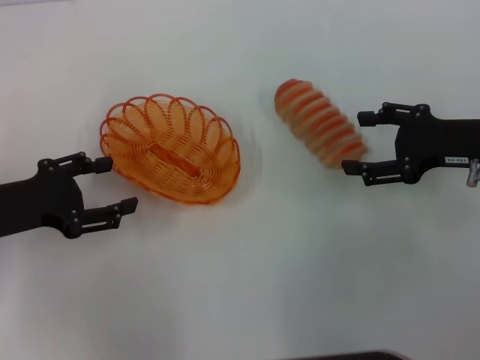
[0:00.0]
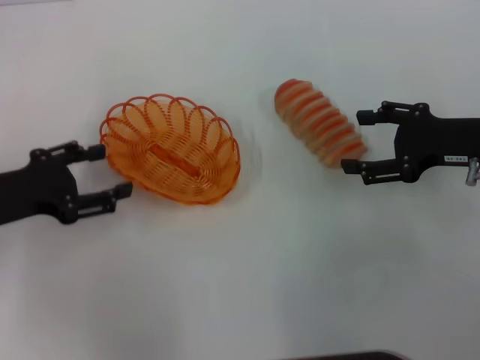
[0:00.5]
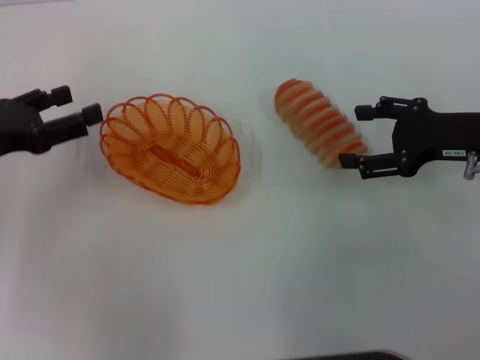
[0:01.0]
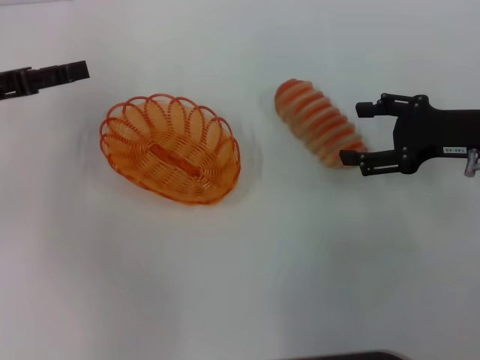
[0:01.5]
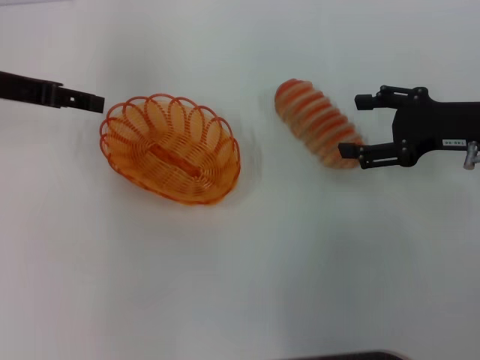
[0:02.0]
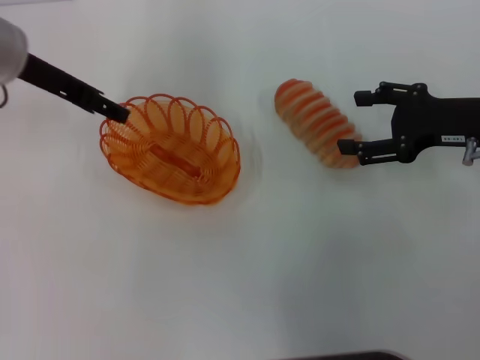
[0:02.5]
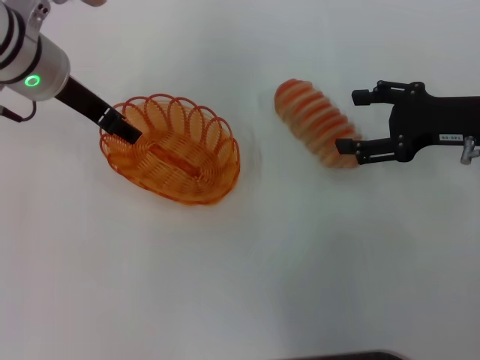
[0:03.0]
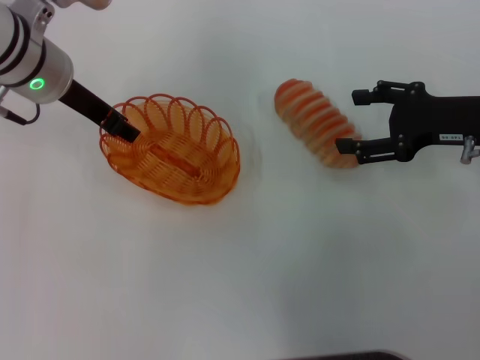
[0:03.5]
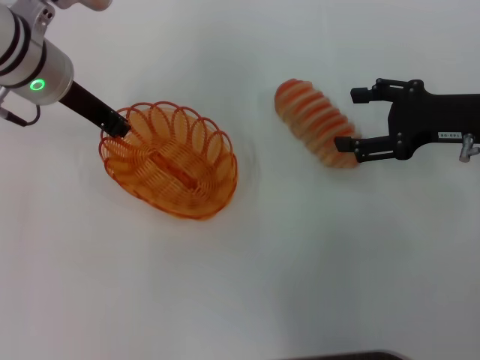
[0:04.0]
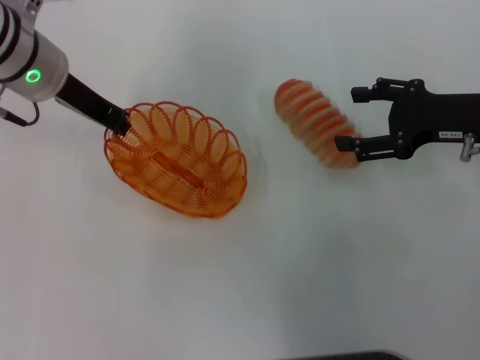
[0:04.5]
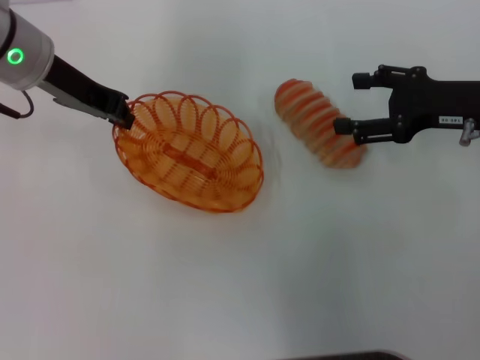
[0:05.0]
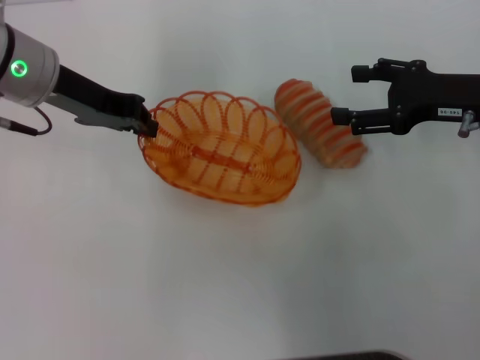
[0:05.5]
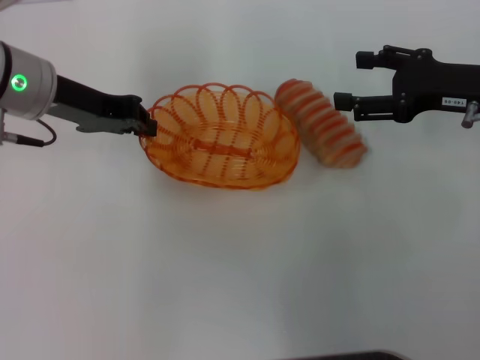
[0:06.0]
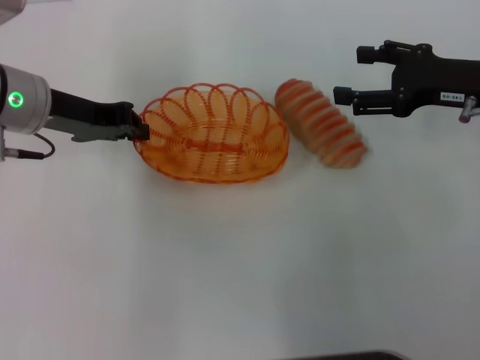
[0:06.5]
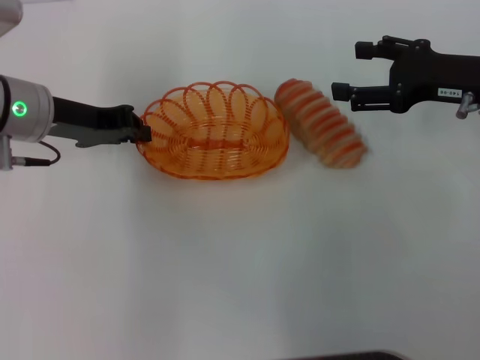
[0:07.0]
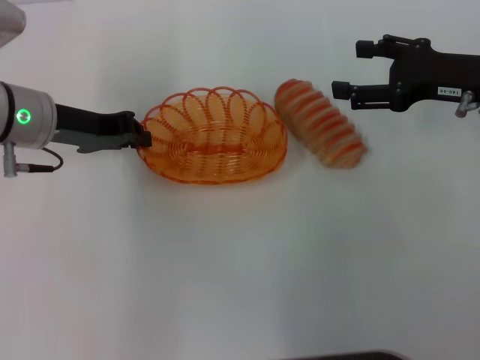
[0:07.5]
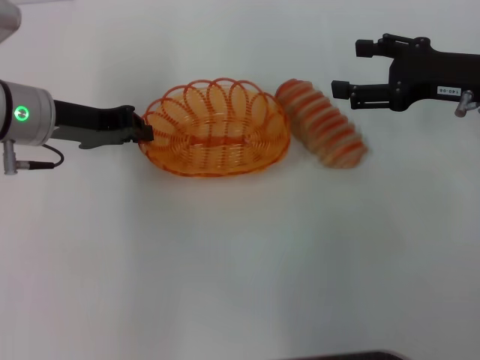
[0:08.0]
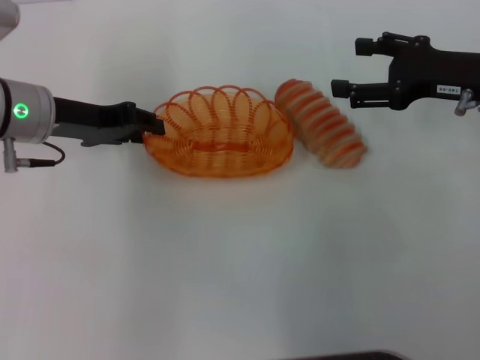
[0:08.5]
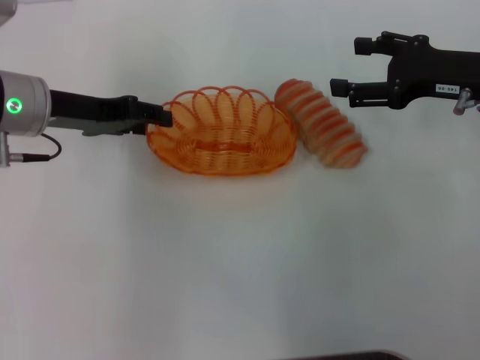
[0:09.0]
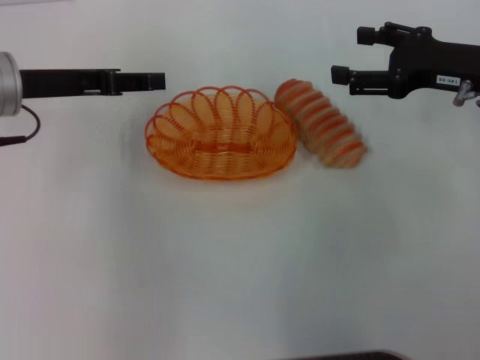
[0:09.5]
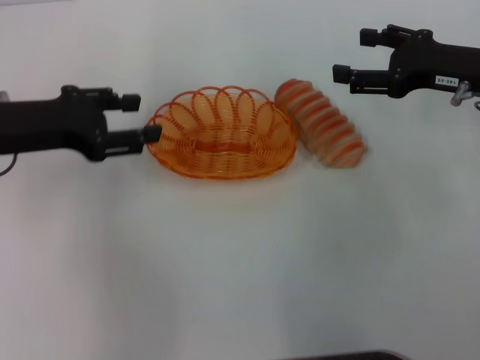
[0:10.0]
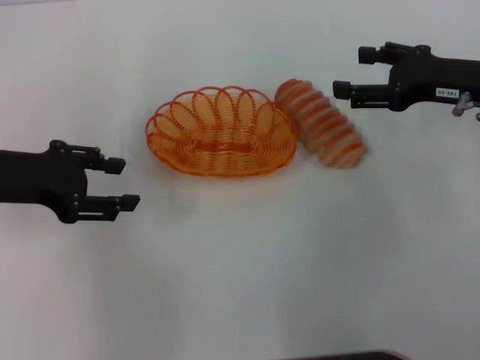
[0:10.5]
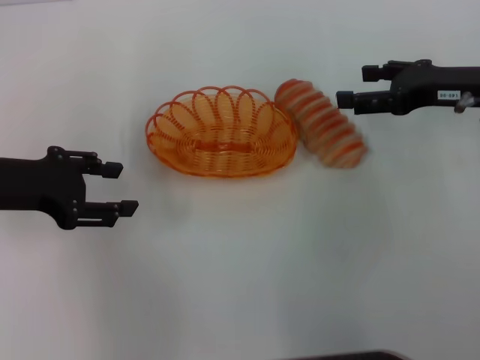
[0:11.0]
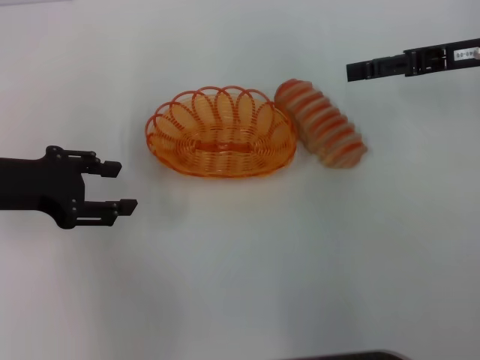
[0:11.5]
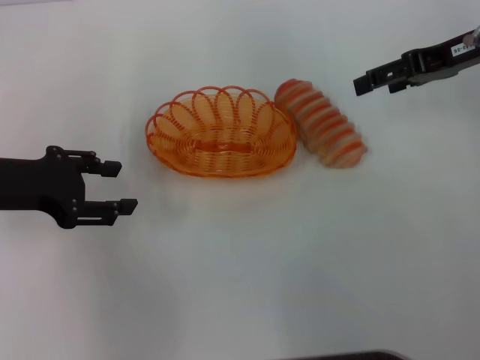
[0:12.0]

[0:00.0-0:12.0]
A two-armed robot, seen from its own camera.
Step, 0:00.0 to 0:05.0: Pick up the basket with the left gripper.
Step, 0:05.5 to 0:09.0: Place the basket in the center of view with the left gripper.
0:00.0 to 0:02.0: The left gripper travels forward and upward by about 15 cm.
0:02.0 to 0:04.0: The left gripper moves to the right, roughly 10 cm, and closes its fingers.
0:06.0 to 0:08.0: The grippers move only a little.
0:08.0 to 0:10.0: The left gripper ends up about 5 cm from where it was, and opens up.
0:10.0 to 0:12.0: The right gripper shifts about 5 cm upward.

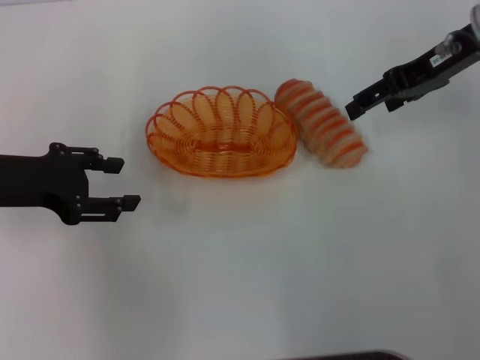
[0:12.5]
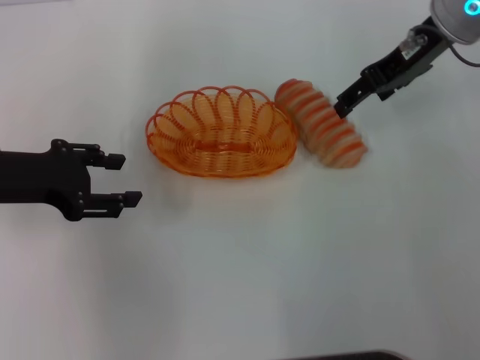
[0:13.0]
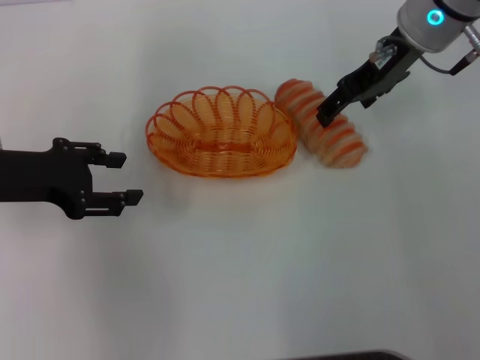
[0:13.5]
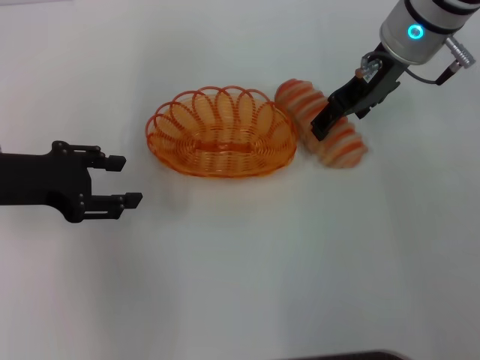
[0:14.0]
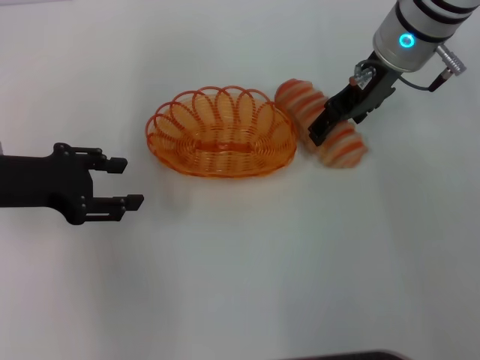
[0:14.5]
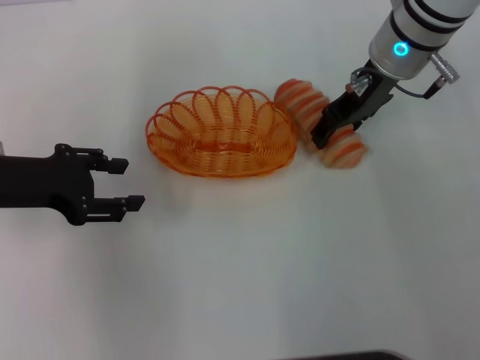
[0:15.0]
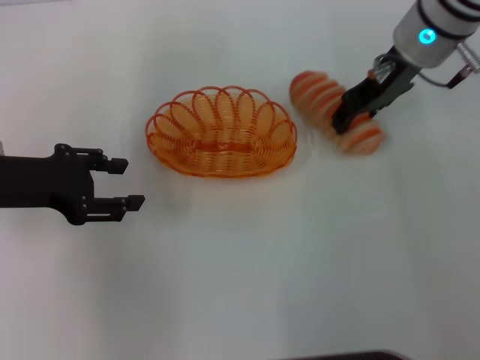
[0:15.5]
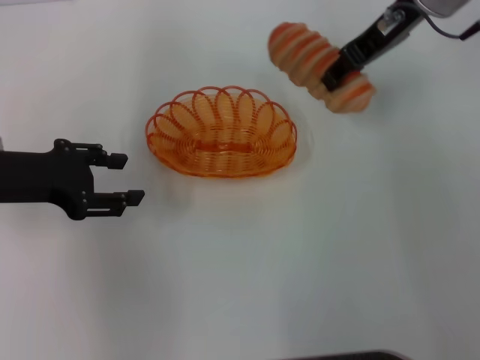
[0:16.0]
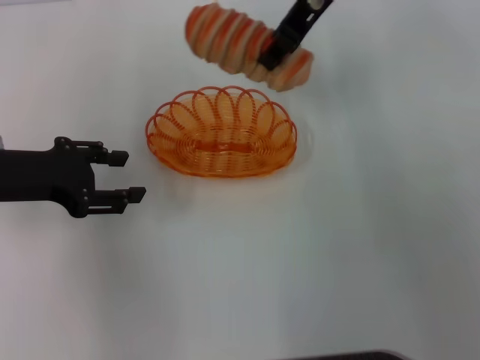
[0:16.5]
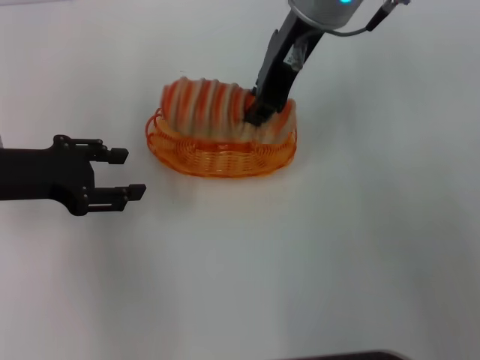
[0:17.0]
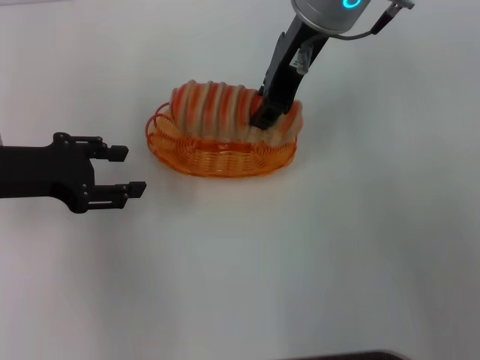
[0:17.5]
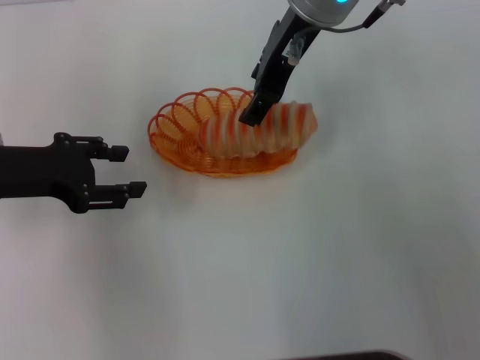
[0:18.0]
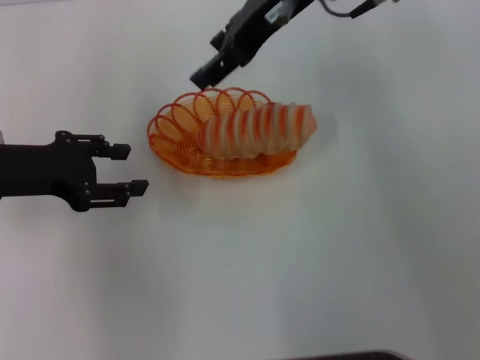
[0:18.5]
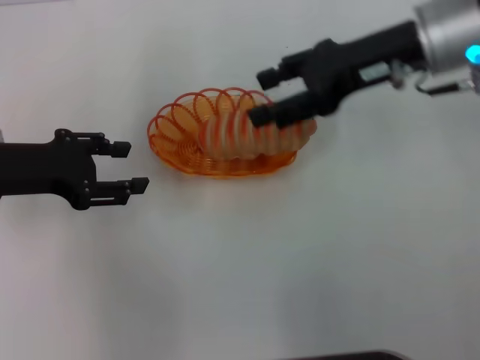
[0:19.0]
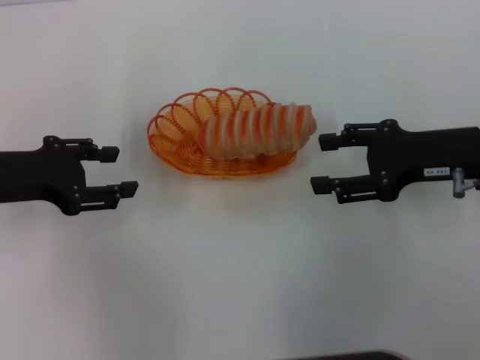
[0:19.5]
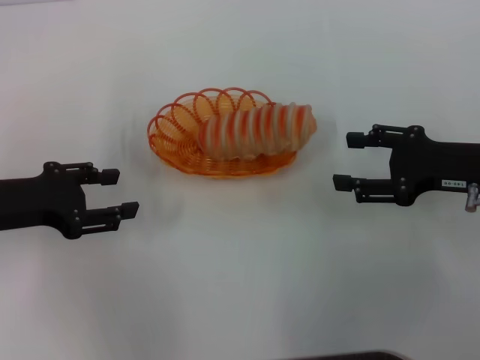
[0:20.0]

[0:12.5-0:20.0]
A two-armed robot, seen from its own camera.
Step, 0:12.5 to 0:15.5: Pick up the long bread with the right gripper.
Step, 0:16.0 to 0:18.0: Place the long bread into the basket with the right gripper.
0:12.5 to 0:14.5: The right gripper is displaced to the left by approximately 10 cm.
0:14.5 to 0:16.5: The right gripper is displaced upward and to the left by approximately 10 cm, and closes.
0:16.5 to 0:18.0: The right gripper opens up.
0:18.0 to 0:20.0: The right gripper moves to the right, downward and backward, roughly 30 cm.
